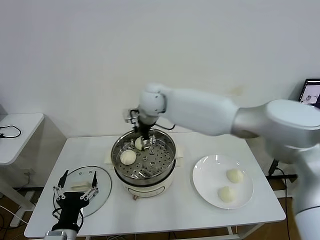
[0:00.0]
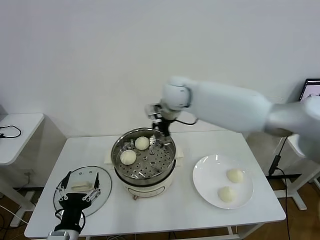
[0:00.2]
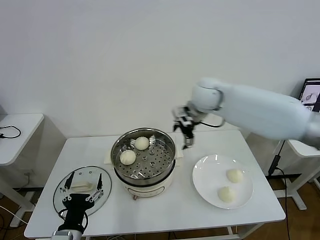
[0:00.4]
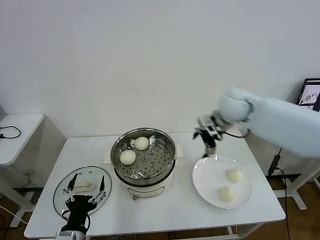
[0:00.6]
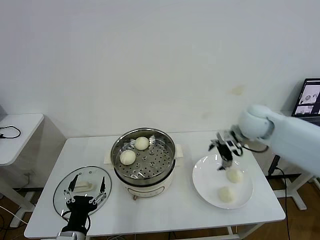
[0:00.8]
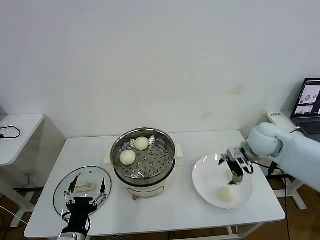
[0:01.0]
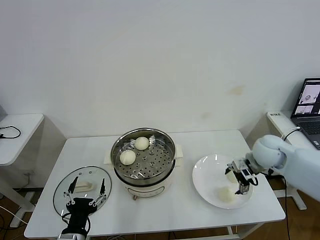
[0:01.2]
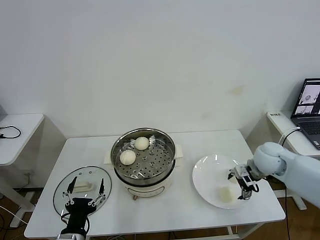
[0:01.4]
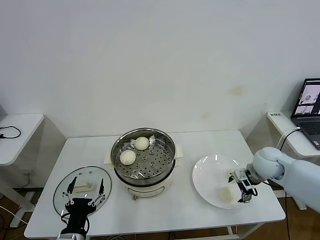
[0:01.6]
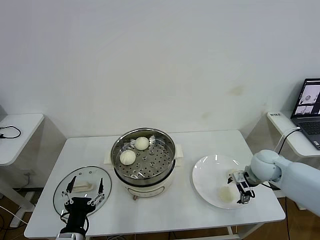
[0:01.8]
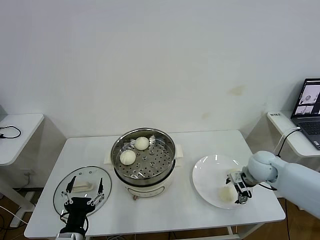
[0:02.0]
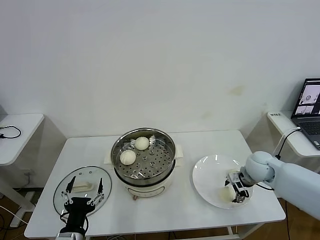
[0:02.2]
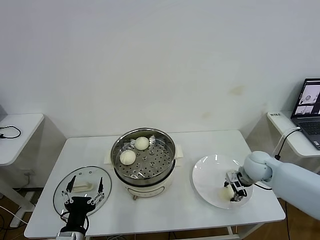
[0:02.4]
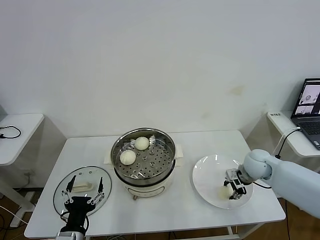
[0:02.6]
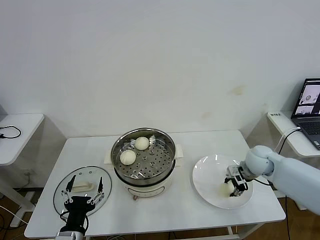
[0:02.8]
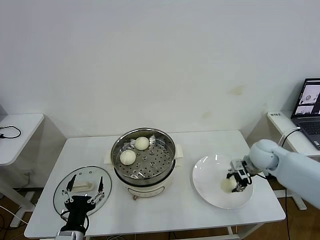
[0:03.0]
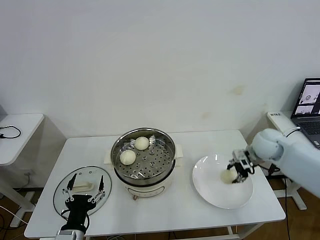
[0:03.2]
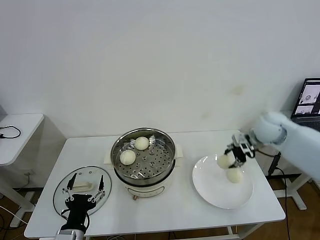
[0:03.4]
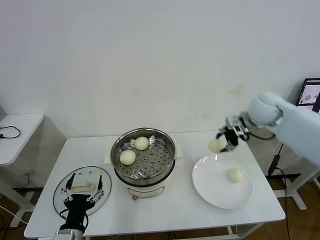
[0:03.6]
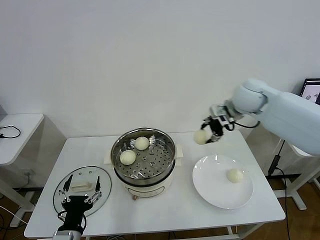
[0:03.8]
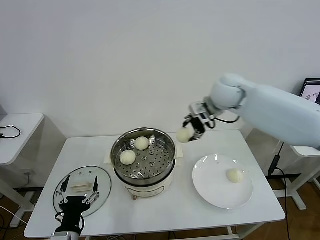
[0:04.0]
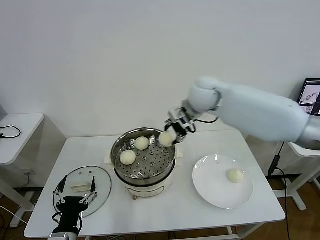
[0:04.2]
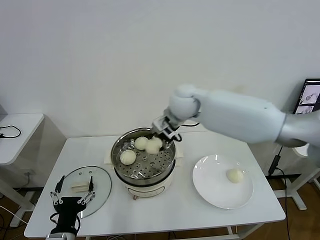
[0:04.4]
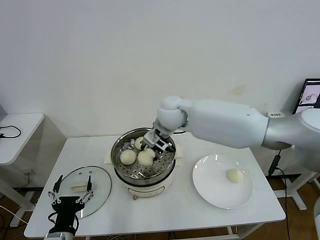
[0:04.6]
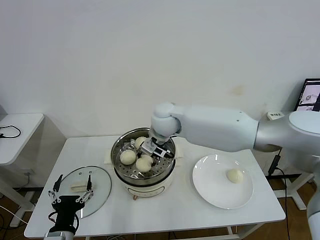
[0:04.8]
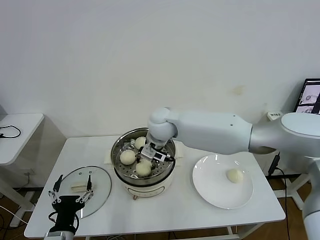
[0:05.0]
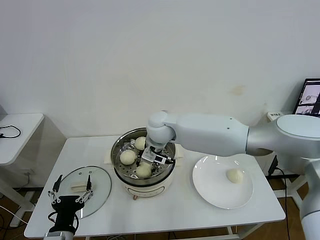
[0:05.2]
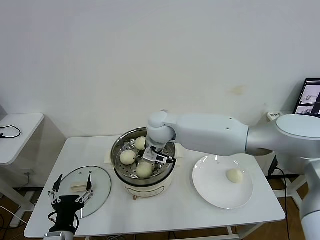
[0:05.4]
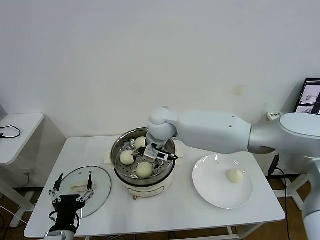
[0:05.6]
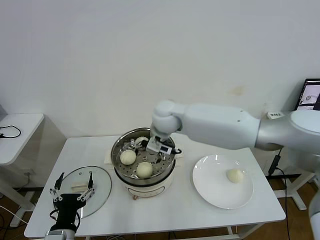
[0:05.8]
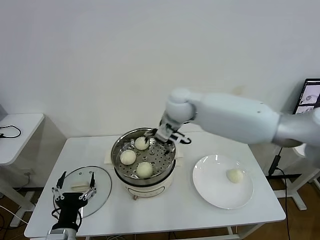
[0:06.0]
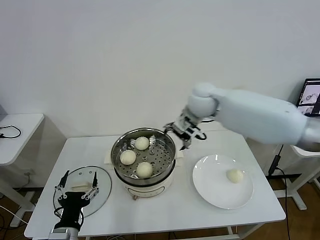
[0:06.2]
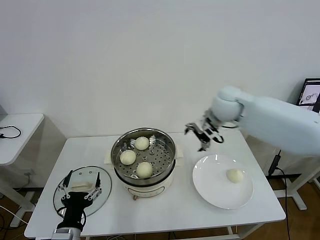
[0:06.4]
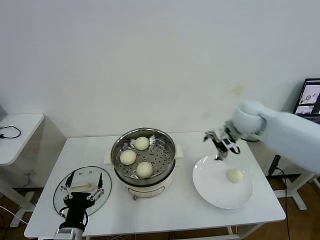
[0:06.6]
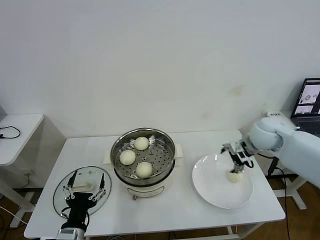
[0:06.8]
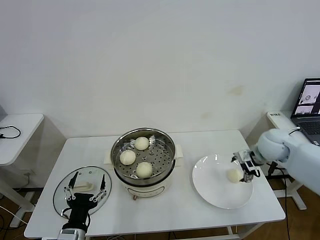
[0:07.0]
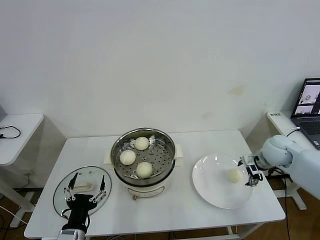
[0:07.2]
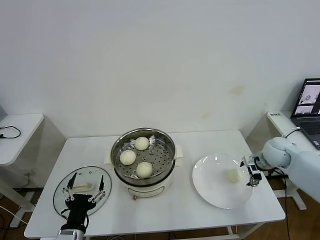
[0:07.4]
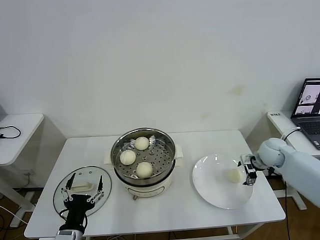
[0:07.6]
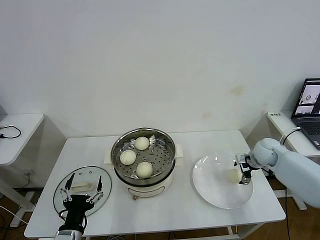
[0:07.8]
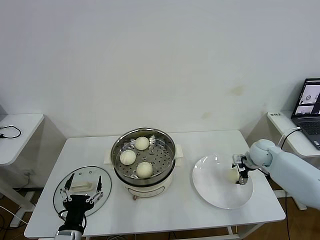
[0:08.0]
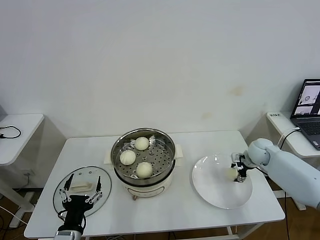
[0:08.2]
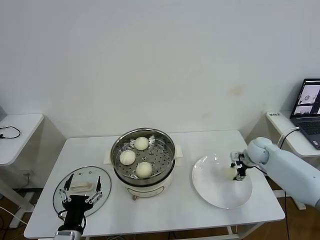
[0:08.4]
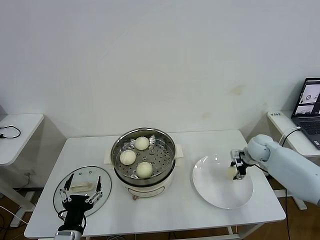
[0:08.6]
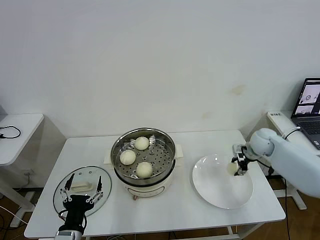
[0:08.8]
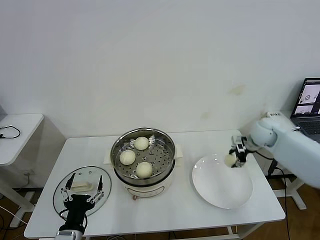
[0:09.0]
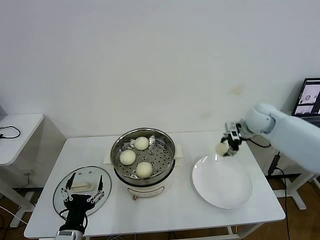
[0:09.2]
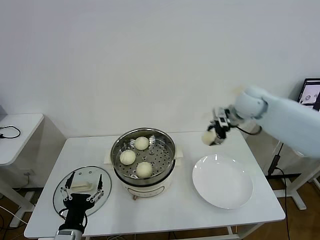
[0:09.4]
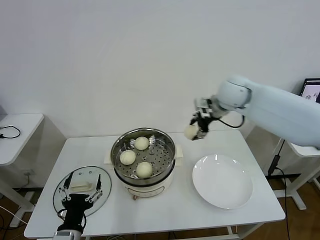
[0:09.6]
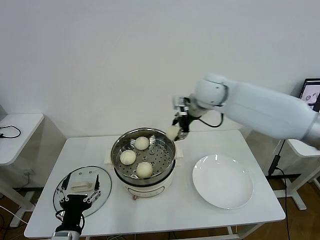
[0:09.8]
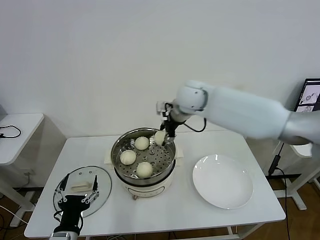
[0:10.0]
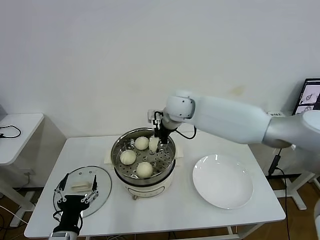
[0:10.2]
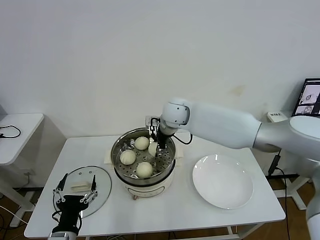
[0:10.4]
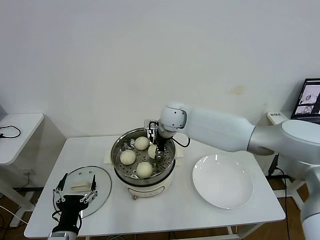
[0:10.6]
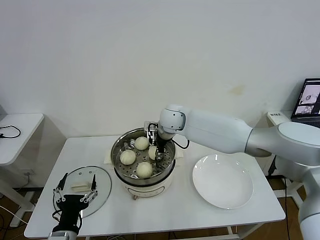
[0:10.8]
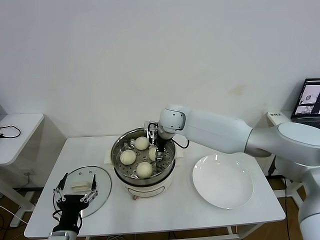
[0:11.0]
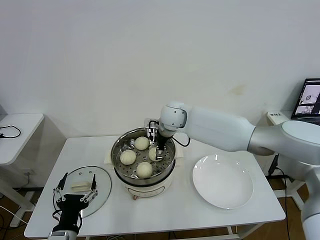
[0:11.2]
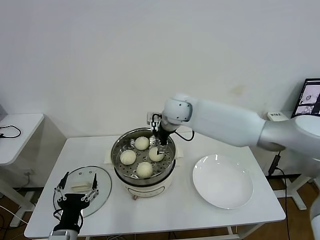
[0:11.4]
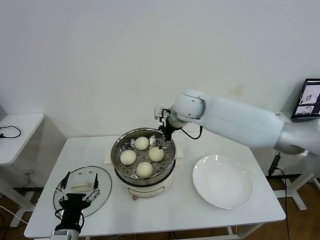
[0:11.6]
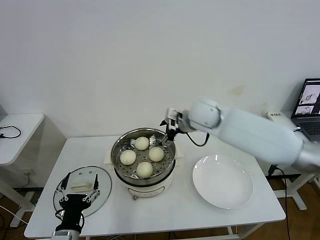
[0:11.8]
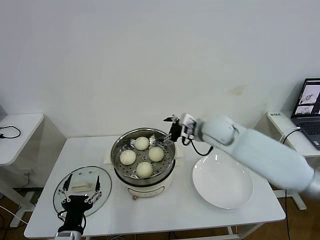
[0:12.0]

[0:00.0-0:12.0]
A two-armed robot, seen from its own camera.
Task of the whole recording: take steamed baozi put them in steamer then cover it.
Step, 0:00.0 to 0:02.4: Grasp the baozi in the plate with right gripper.
Step, 0:02.6 to 0:05.4: Place the baozi on the steamer with right gripper.
Step, 0:05.8 to 0:08.2: Grasp the baozi in the plate with right gripper.
Step, 0:08.4 to 0:11.2: Place the baozi on the steamer with right gripper.
0:00.0 to 0:01.6: The right gripper heads to the right and downward, covering approximately 40 cm.
0:01.6 to 0:03.0: The right gripper closes its fingers.
0:03.0 to 0:04.4: The right gripper goes some 35 cm to the left and upward.
0:04.4 to 0:06.0: The right gripper opens.
0:06.0 to 0:07.6: The right gripper heads to the right and downward, covering some 40 cm.
0:07.6 to 0:09.0: The right gripper is displaced upward by some 5 cm, and closes up.
0:09.0 to 0:10.4: The right gripper travels to the left by some 30 cm.
0:10.4 to 0:12.0: The right gripper travels to the right and backward by approximately 15 cm, and opens up.

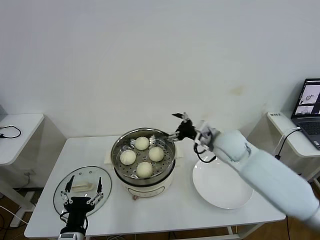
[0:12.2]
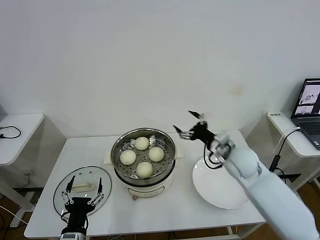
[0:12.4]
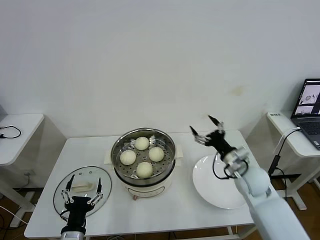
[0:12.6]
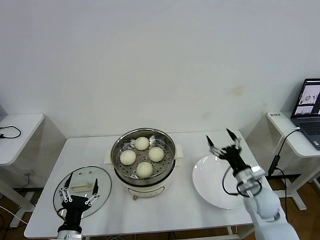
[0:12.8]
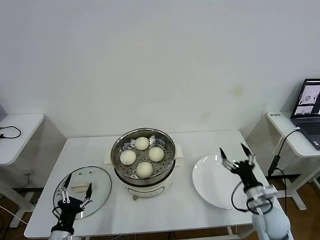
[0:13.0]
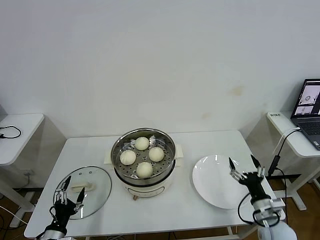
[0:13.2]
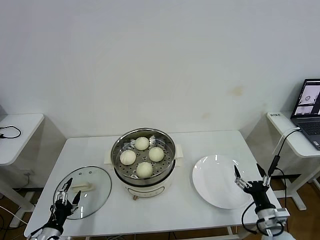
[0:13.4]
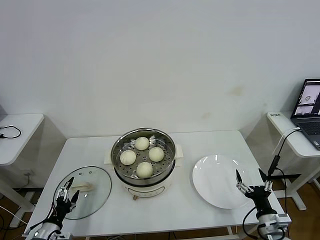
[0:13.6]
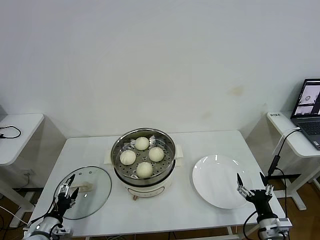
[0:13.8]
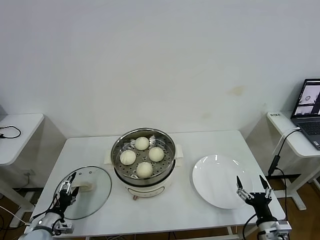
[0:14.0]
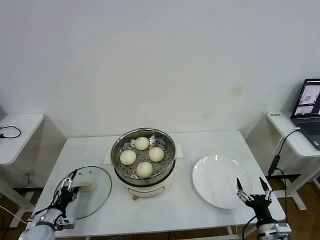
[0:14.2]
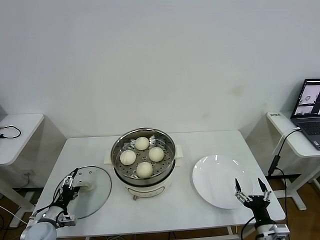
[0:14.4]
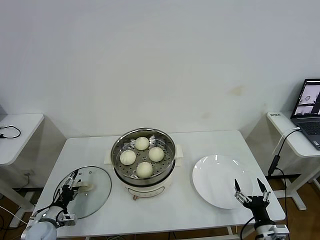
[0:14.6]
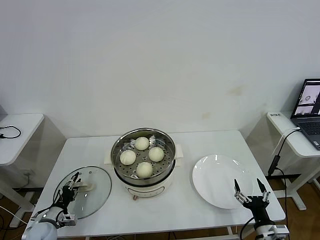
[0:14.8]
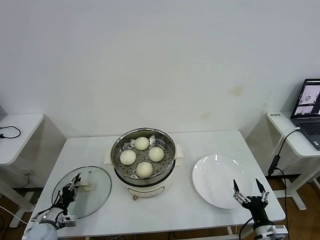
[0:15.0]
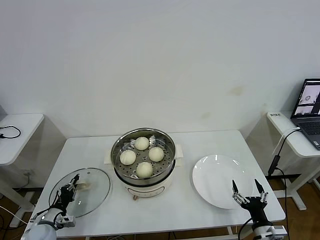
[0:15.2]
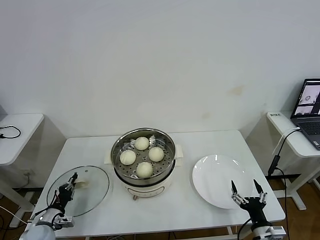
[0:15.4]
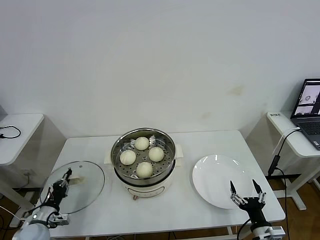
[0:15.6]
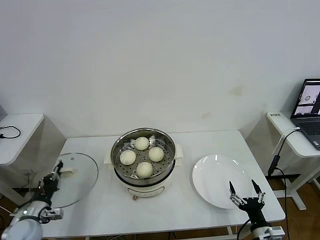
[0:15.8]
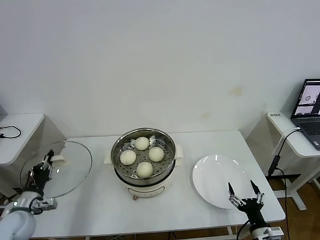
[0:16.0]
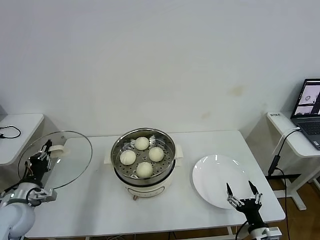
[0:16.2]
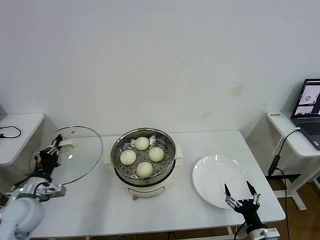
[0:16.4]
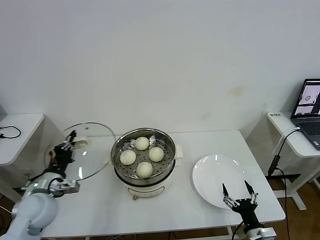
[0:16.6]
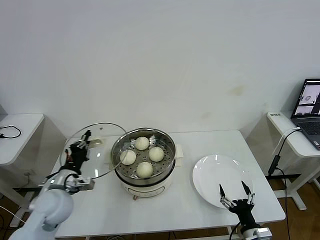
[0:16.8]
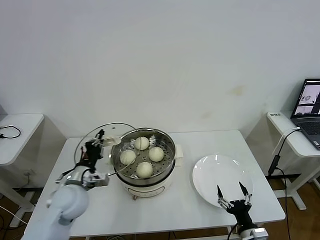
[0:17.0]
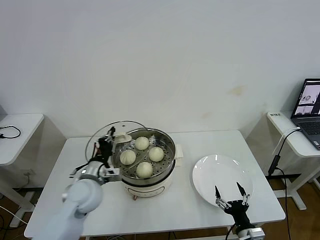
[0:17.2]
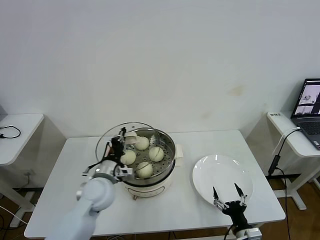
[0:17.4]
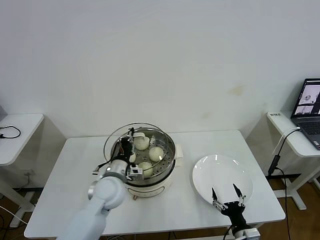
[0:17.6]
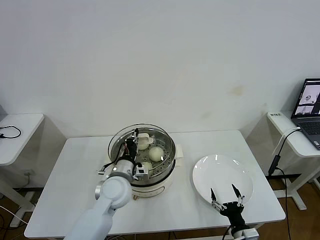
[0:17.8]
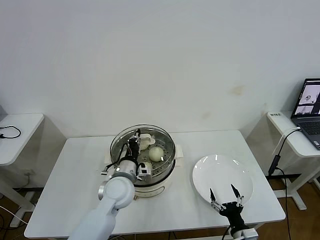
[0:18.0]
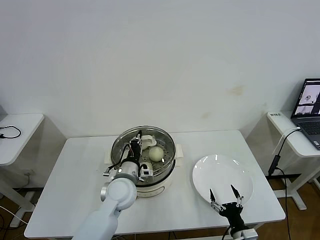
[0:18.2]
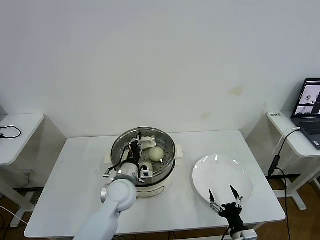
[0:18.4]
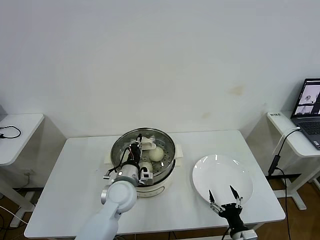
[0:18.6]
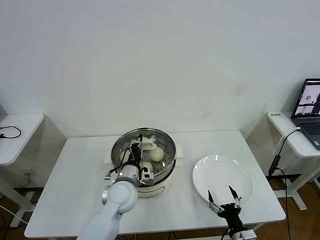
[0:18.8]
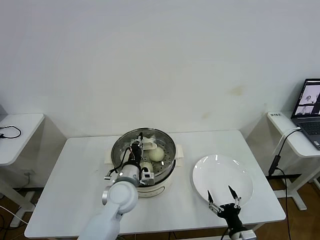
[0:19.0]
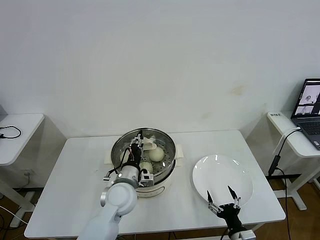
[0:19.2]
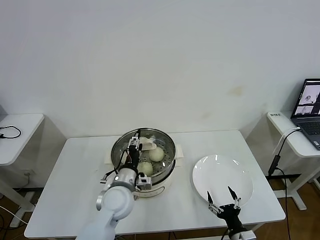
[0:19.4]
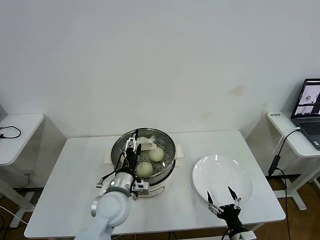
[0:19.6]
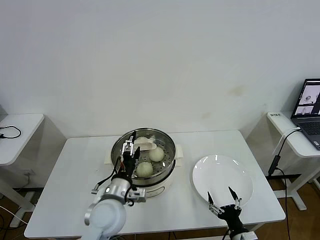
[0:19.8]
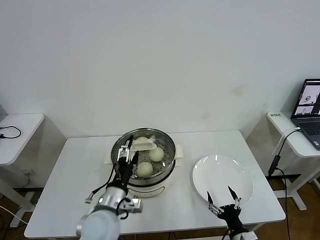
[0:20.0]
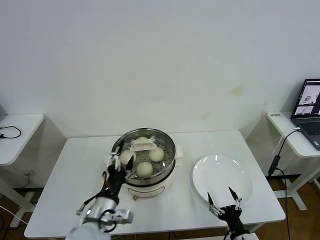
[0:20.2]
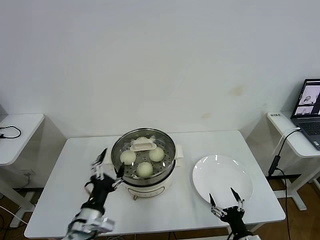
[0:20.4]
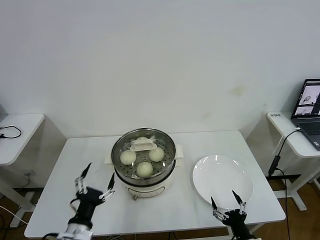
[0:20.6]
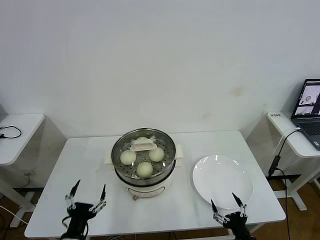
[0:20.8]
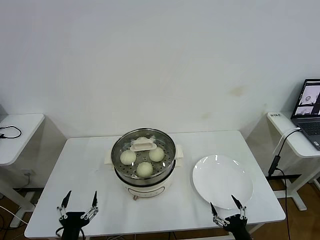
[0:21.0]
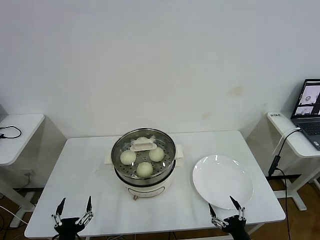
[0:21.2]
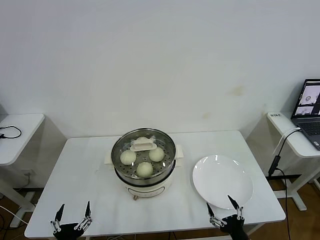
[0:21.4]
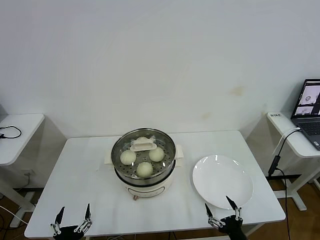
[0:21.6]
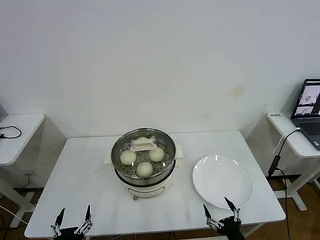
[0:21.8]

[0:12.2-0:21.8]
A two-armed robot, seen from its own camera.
Task of the whole recording: take steamed baozi put them in steamer then cover it.
Step, 0:12.2 to 0:15.2: Grasp the pot lid with left gripper.
Step, 0:15.4 to 0:19.6: Place the pot lid on the steamer with left gripper.
0:12.2 to 0:13.8: The left gripper travels to the left, downward and forward by some 20 cm; the right gripper heads backward, downward and to the right, covering approximately 35 cm.
0:13.8 to 0:15.4: The left gripper closes its fingers.
0:15.4 to 0:17.0: The left gripper shifts some 25 cm upward and to the right.
0:17.0 to 0:18.6: The left gripper is displaced to the right by approximately 15 cm.
0:18.6 to 0:20.2: The left gripper is displaced backward by roughly 10 cm, and opens up.
0:20.2 to 0:21.8: The left gripper heads backward, downward and to the left, covering roughly 20 cm.
